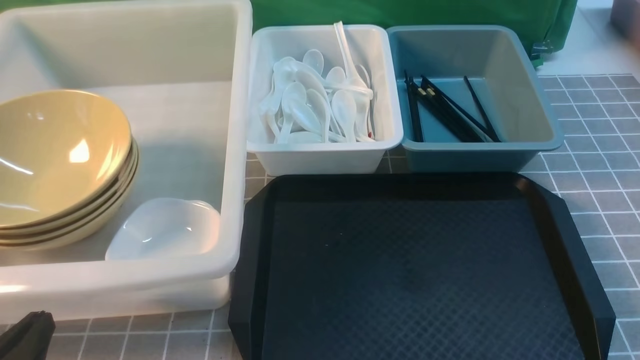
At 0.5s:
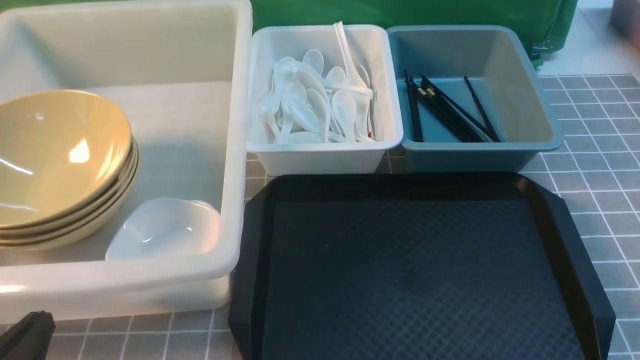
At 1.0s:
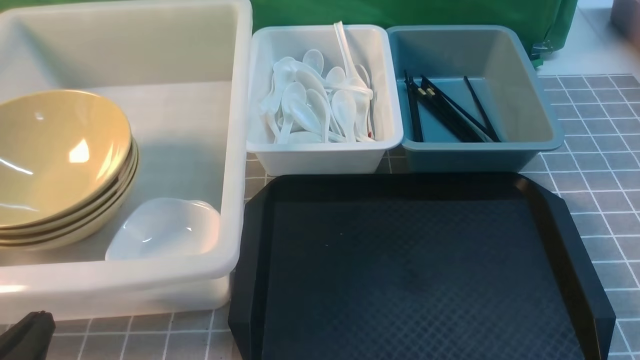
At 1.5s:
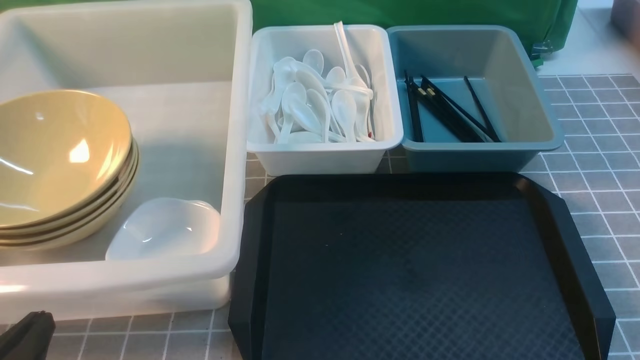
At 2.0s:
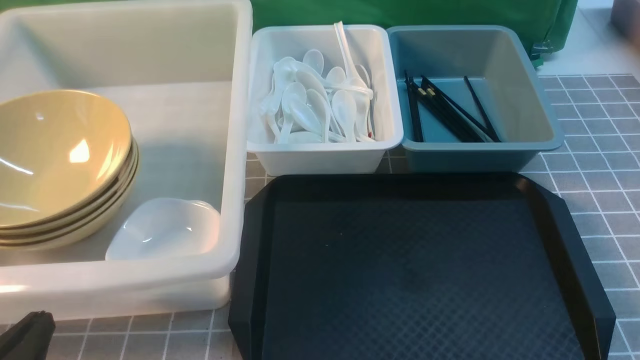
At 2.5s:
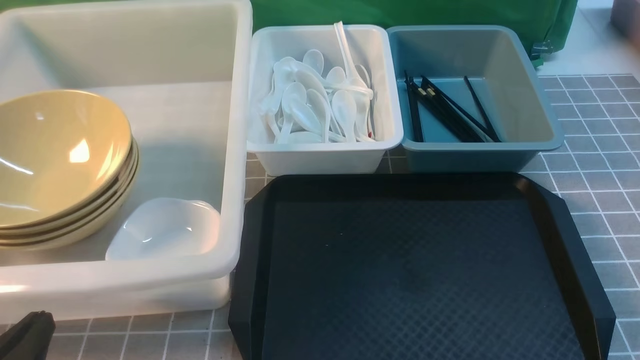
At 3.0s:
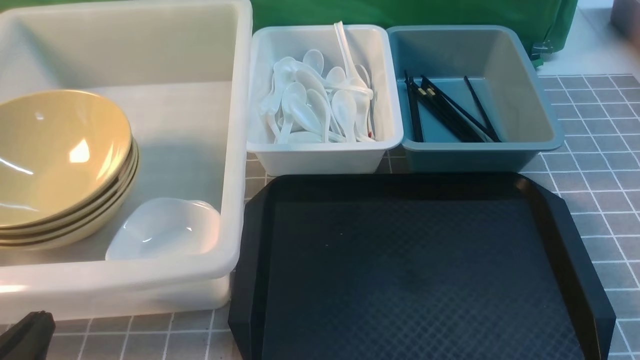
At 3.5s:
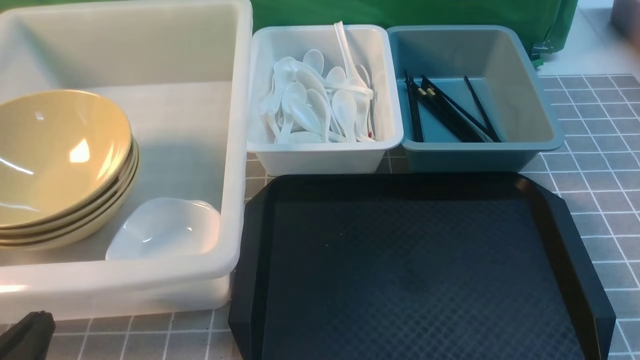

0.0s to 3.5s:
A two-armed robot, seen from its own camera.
Task of the whole recording: on grey table put chopsticks spoon bowls plates into blue grey white boxes.
0.0s to 3.5s: Both grippers stay about where they are.
